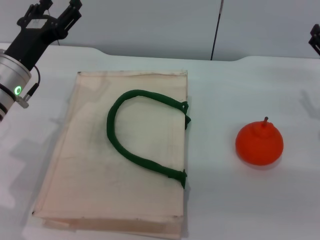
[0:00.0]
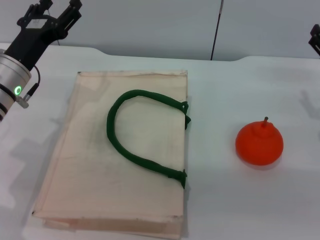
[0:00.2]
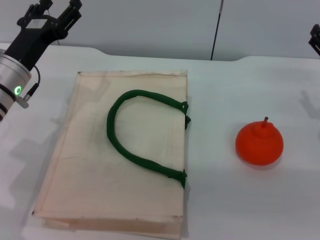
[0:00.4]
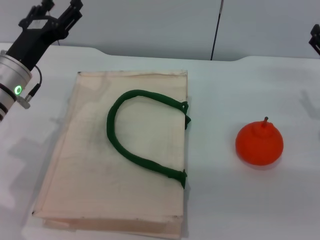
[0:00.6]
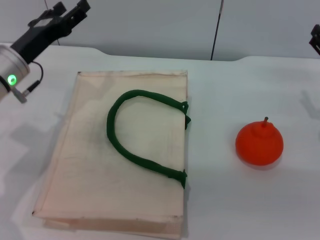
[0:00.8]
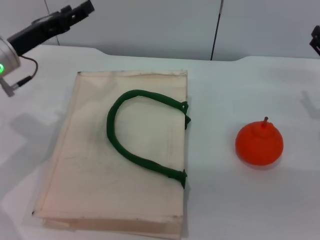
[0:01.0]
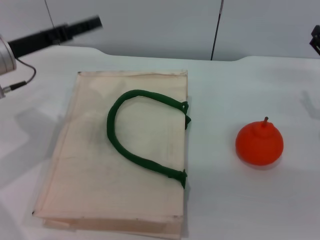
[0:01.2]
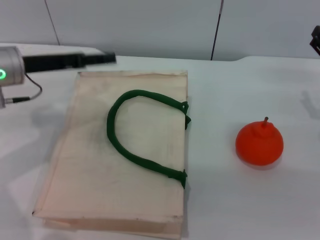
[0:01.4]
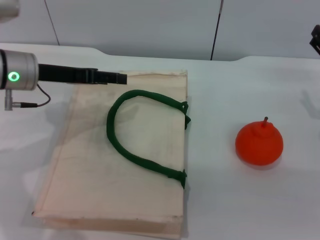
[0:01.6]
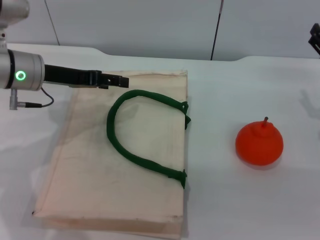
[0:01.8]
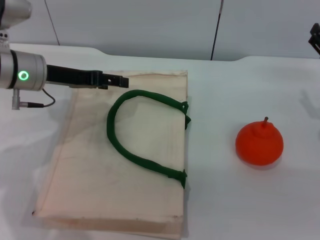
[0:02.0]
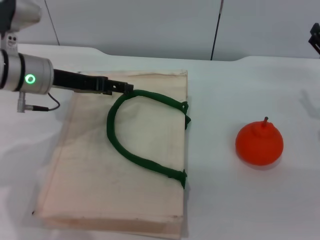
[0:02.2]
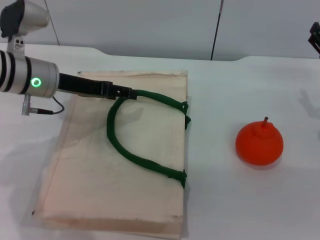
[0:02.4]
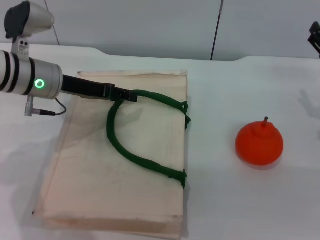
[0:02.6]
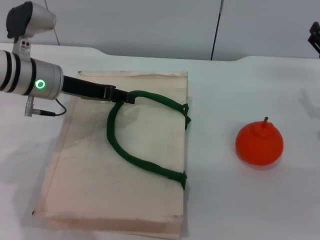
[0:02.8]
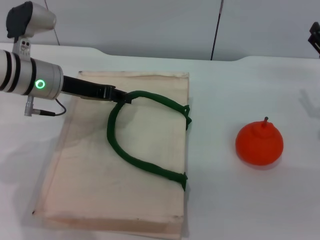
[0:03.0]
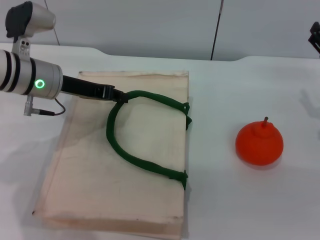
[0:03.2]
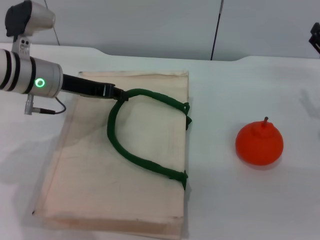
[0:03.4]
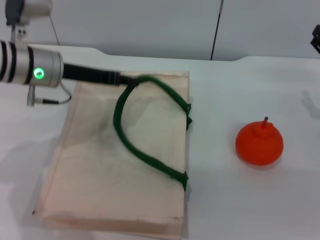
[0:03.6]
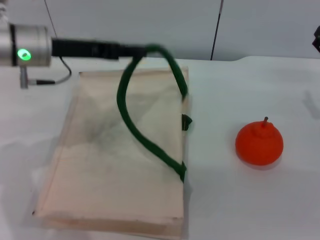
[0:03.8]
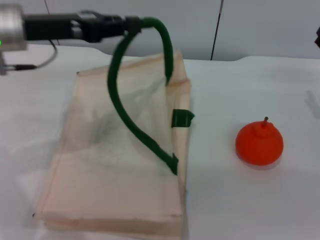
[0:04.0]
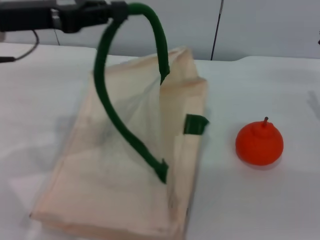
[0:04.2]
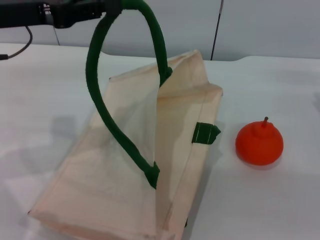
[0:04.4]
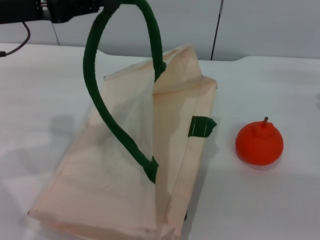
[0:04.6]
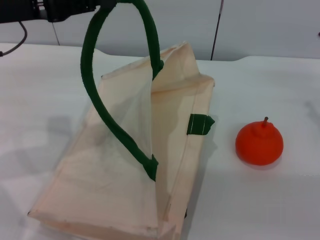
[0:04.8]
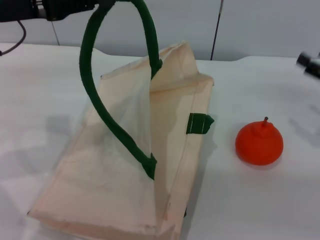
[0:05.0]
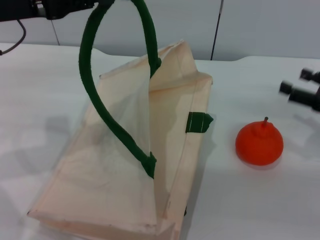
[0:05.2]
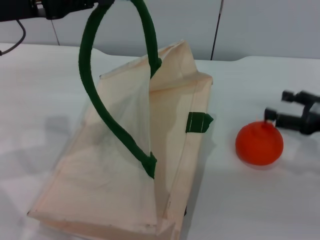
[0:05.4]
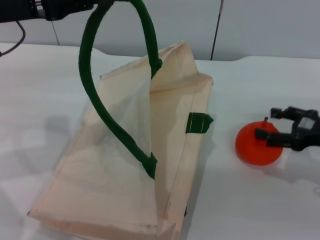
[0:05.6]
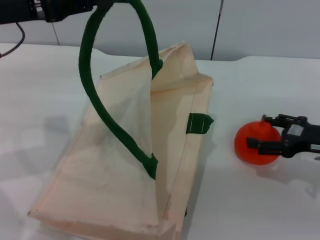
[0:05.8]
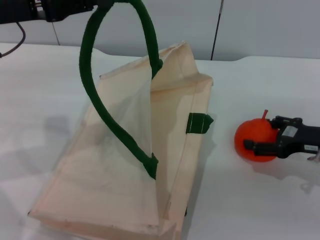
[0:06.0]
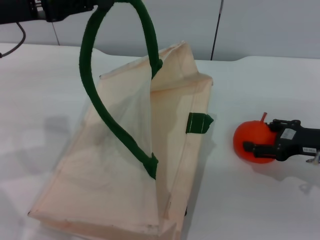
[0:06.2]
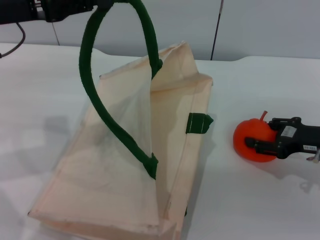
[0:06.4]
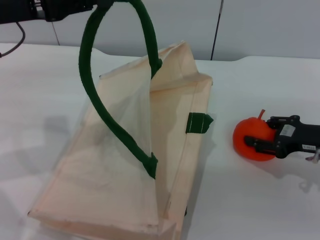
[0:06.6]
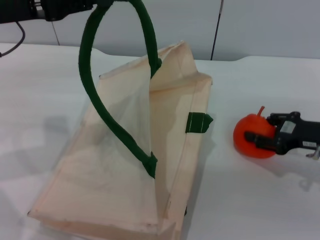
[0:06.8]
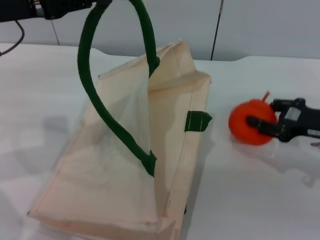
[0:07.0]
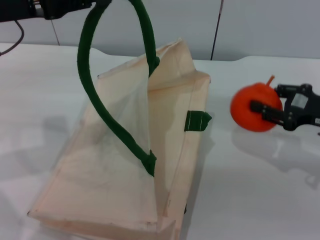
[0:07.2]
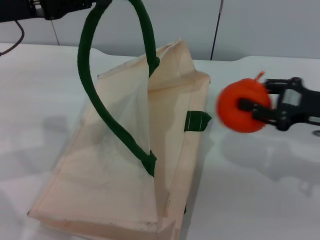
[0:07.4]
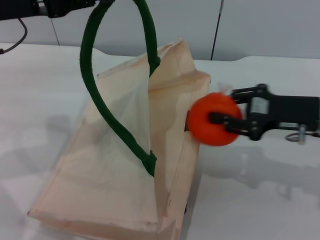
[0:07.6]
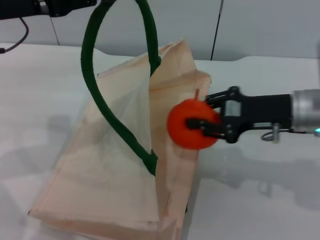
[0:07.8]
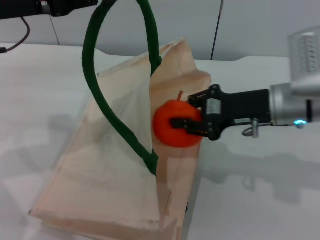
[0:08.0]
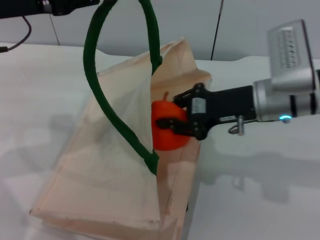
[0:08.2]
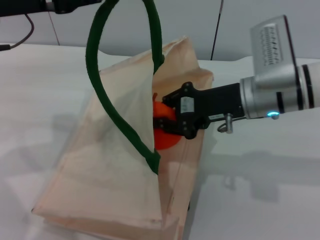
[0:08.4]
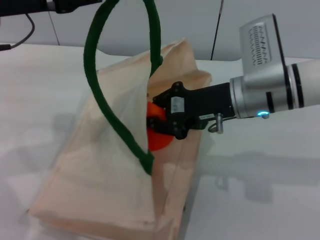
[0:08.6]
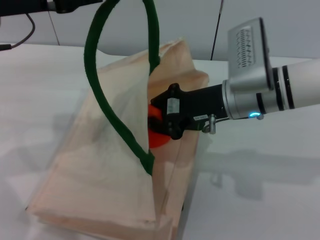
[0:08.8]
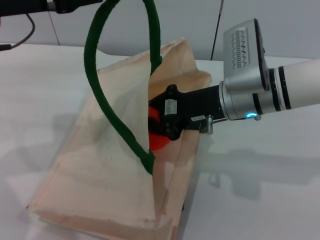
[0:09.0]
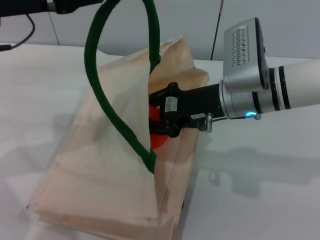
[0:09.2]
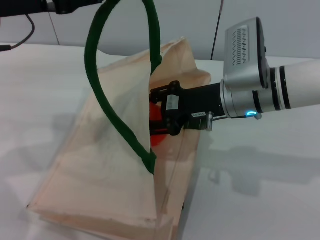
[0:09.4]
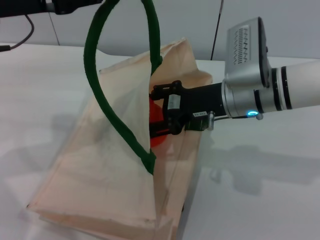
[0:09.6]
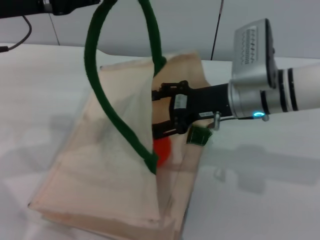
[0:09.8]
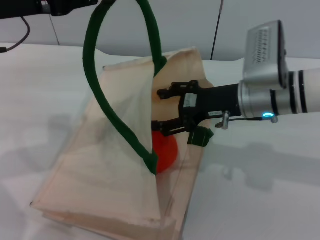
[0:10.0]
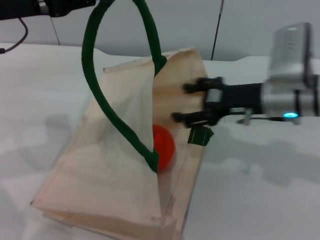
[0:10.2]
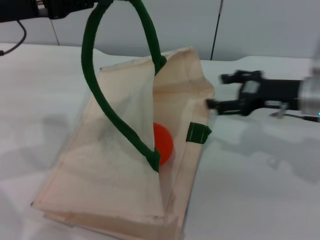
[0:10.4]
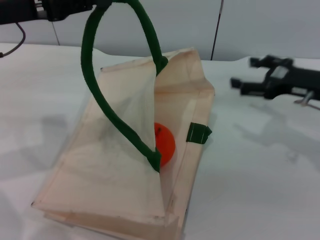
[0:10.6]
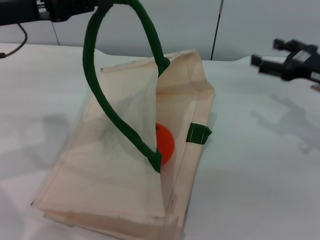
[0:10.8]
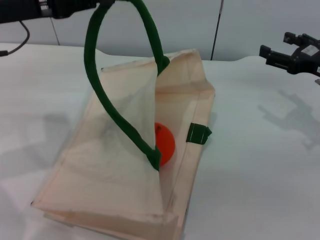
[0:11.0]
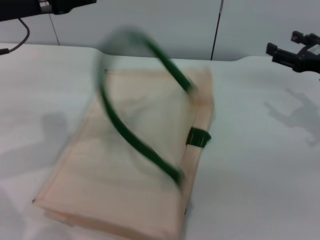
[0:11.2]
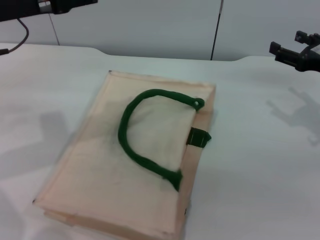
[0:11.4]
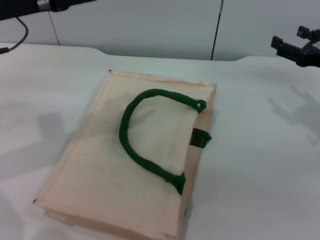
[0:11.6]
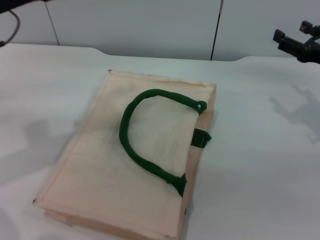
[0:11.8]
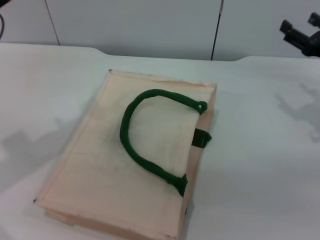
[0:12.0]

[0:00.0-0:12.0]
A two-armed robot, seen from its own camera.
Task of the whole recording: pick up the orange from the table and place it in the white handbag.
Step, 0:00.0 to 0:04.2: Lift the woven bag with the left gripper to open it.
Step, 0:04.4 to 0:07.2: Pick up the orange with the right gripper.
Step, 0:07.4 to 0:10.0: Place the orange into the woven bag with the right gripper.
0:00.0 to 0:01.6: The left gripper ends up approximately 5 cm from where it was.
0:01.6 to 0:03.0: The left gripper closes up.
0:03.0 to 0:04.4: The left gripper is displaced upward by some 10 cm, and closes up.
0:06.0 to 0:07.6: The right gripper moves upward, about 5 cm, and closes up.
0:07.6 to 0:09.0: The right gripper moves to the left, roughly 15 cm.
0:09.0 to 0:10.4: The right gripper goes some 10 cm to the right, and opens up.
0:10.4 to 0:12.0: The right gripper shifts approximately 5 cm to the right. Meanwhile the left gripper opens its fingers.

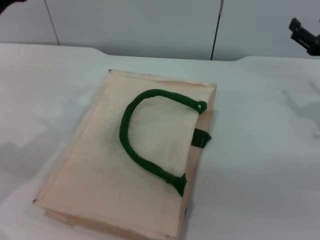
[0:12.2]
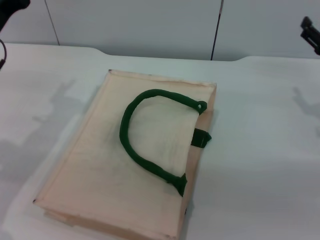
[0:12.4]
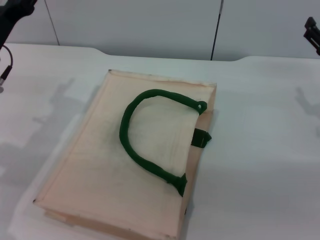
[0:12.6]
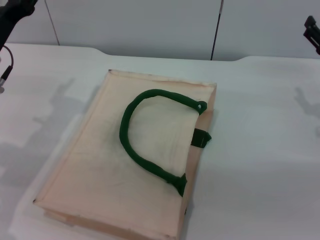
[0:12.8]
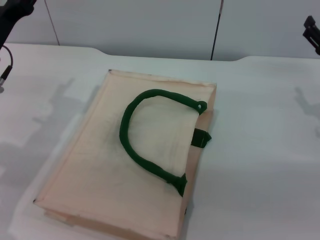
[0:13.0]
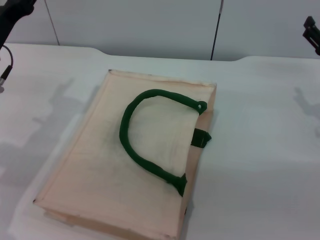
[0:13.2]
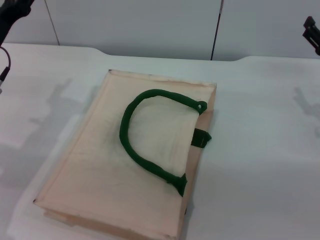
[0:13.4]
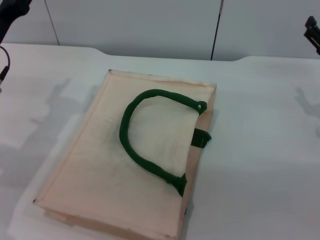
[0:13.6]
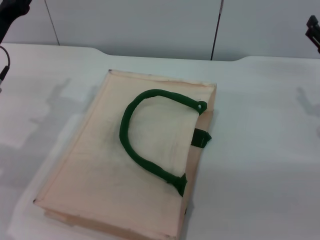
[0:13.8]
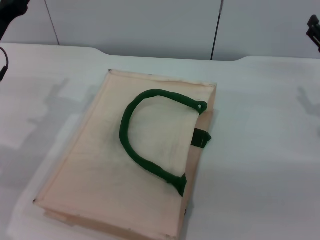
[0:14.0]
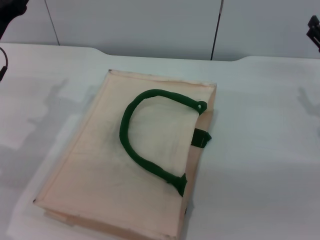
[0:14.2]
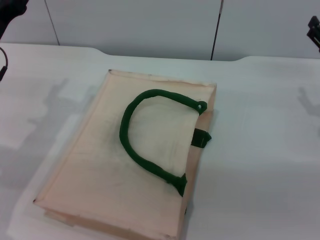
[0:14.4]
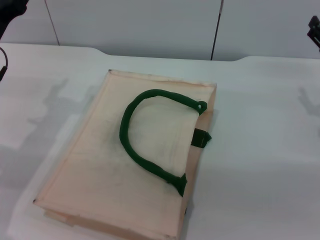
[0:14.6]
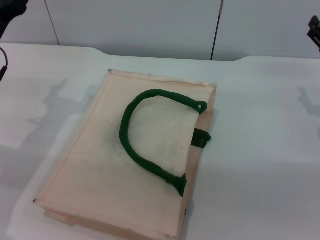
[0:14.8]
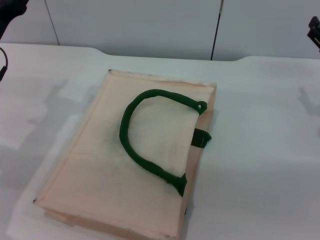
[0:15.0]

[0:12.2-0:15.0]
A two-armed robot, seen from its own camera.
Task of the whole recording: pick up the orange from the table and place it in the white handbag.
0:12.2 to 0:13.6: The grippers move only a little.
0:13.6 to 0:15.0: Both grippers stay about where they are.

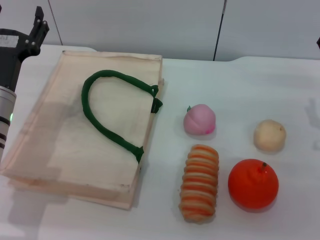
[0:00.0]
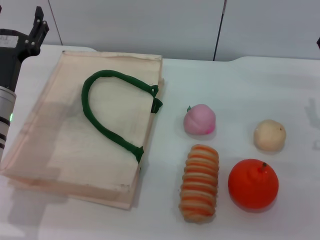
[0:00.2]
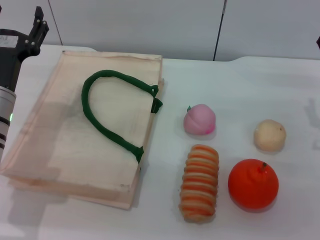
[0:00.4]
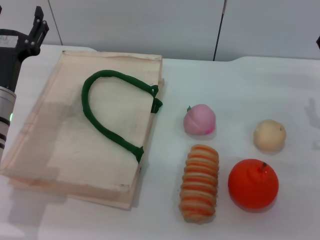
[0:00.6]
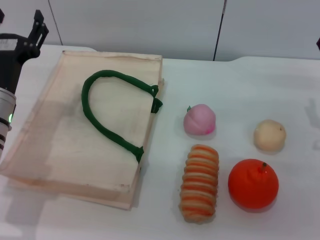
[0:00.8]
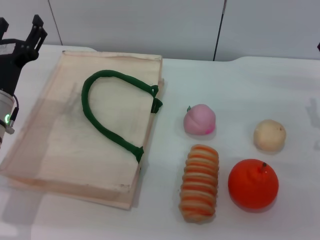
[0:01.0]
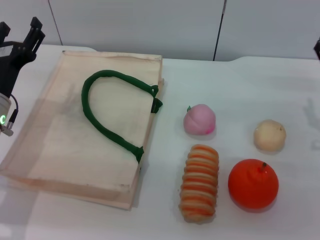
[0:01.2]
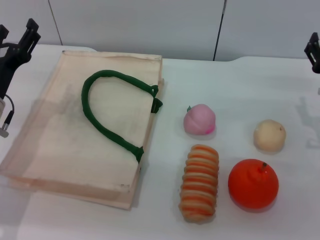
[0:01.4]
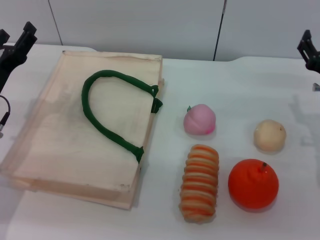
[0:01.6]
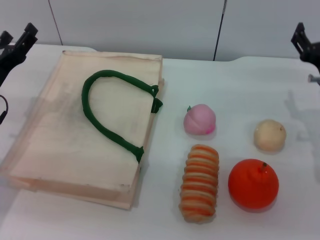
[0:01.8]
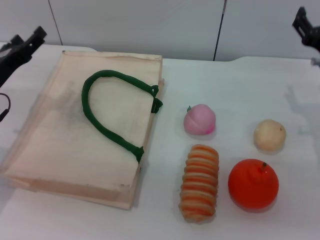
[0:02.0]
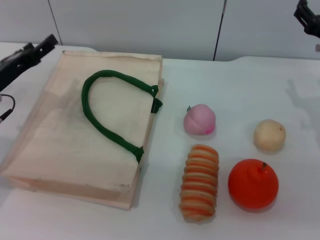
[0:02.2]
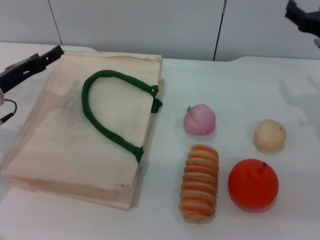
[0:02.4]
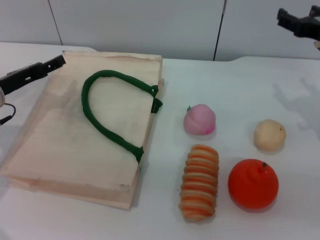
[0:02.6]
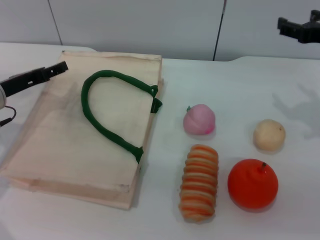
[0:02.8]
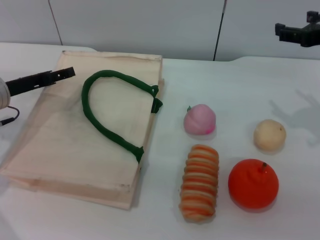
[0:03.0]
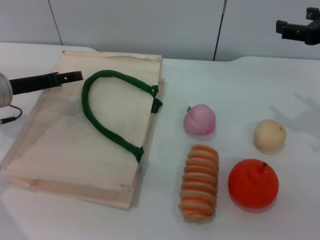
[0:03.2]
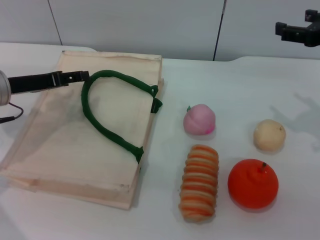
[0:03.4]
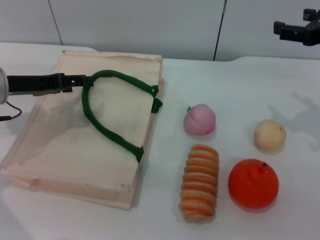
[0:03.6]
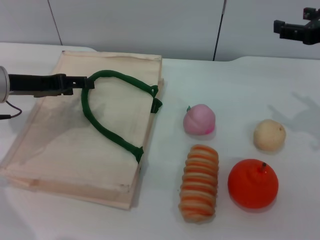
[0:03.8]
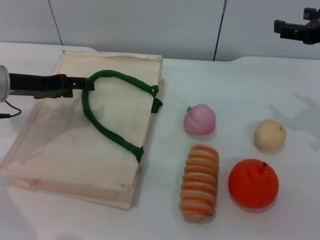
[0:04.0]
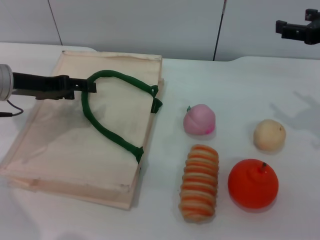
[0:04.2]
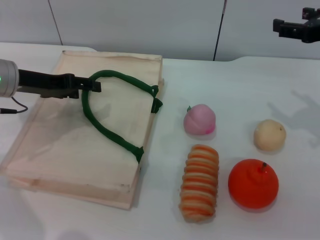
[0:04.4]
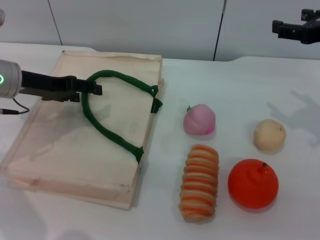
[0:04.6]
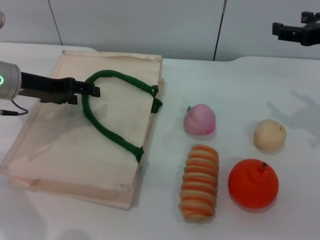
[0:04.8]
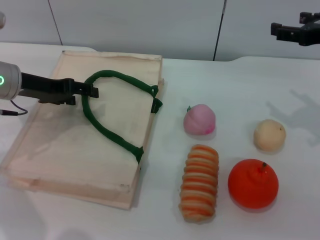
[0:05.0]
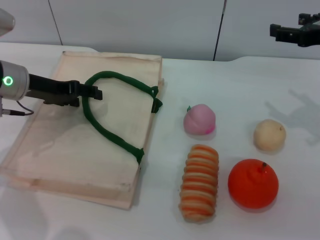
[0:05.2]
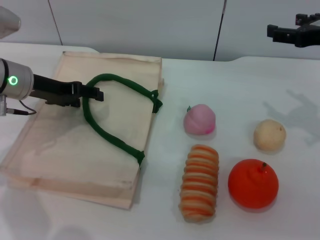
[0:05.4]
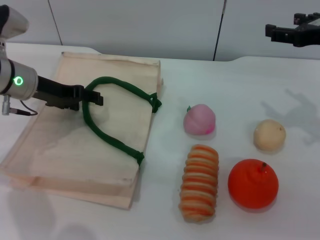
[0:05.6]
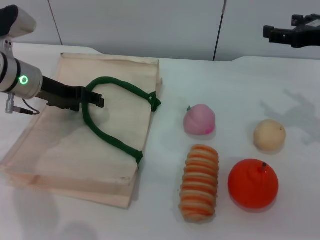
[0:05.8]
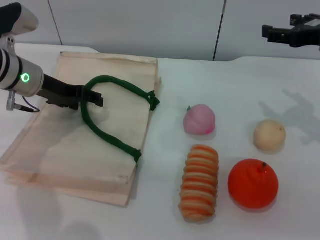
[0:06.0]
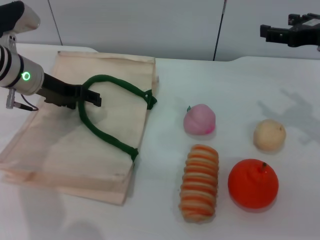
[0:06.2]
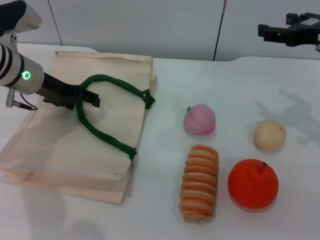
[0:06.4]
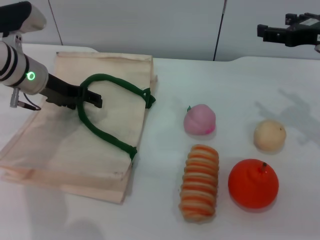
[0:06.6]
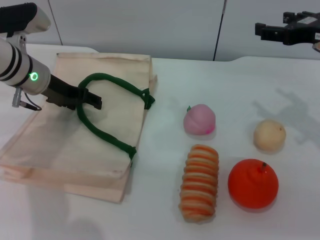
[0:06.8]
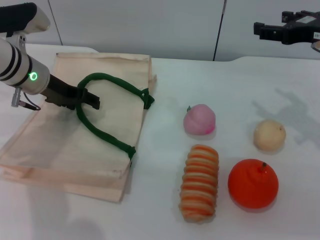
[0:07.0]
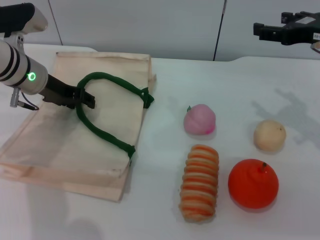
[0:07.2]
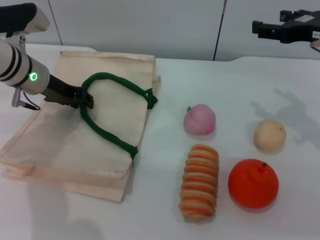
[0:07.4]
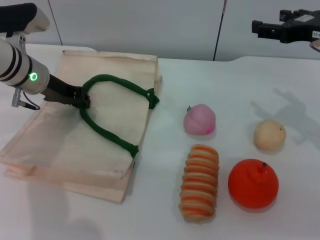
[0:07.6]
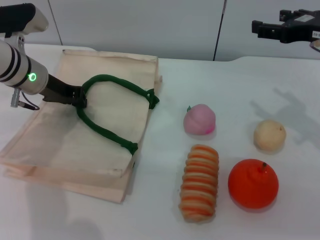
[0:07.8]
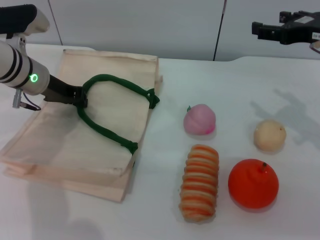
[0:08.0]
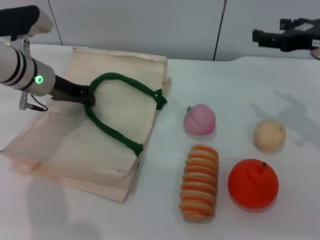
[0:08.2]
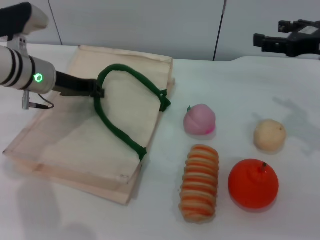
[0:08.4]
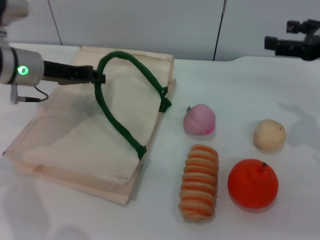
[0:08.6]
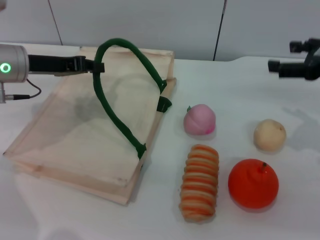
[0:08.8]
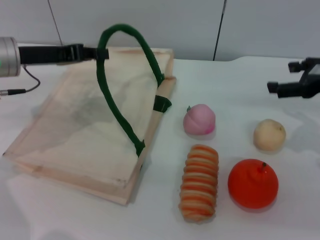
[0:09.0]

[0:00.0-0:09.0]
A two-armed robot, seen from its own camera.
Task of the whole recording: pick up the egg yolk pastry from the table and place it in the white handbag.
Step, 0:00.0 to 0:08.0: Lift the woven bag with the left gripper to open it.
0:01.6 to 0:03.0: The left gripper shifts by about 5 cm; the right gripper is displaced upward by some 15 cm.
0:03.0 to 0:04.4: The left gripper heads upward, covering some 5 cm.
0:04.4 to 0:06.0: There are only small adjustments of the grippers.
0:06.0 to 0:07.6: The left gripper closes.
0:07.6 to 0:09.0: The left gripper shifts by some 5 cm, and closes up. The right gripper shifts by roughly 5 cm.
